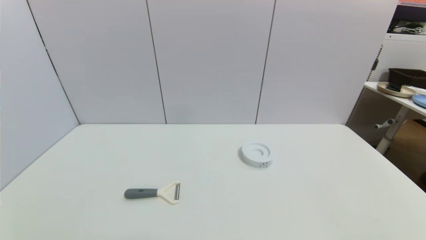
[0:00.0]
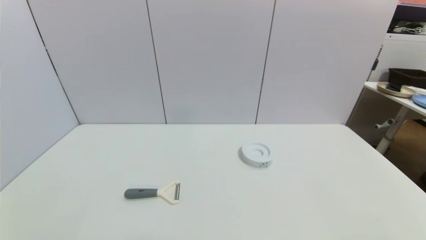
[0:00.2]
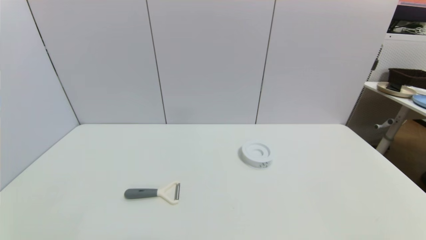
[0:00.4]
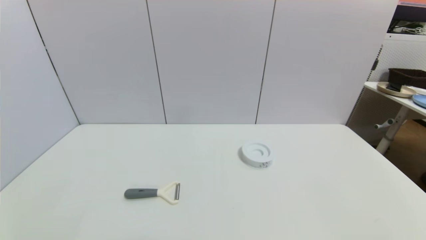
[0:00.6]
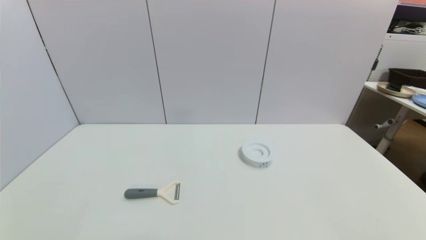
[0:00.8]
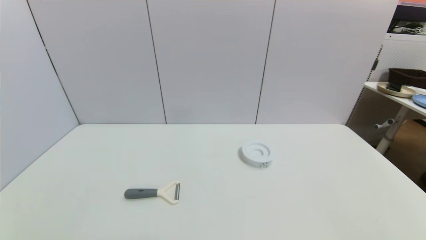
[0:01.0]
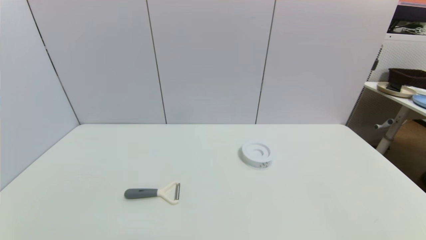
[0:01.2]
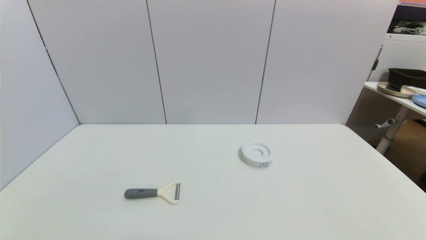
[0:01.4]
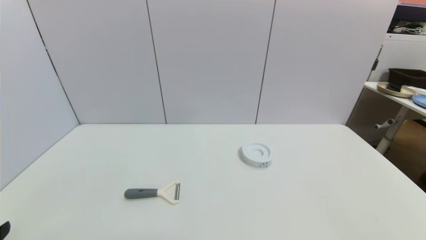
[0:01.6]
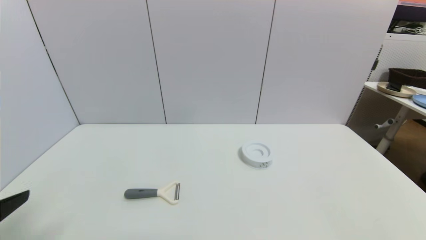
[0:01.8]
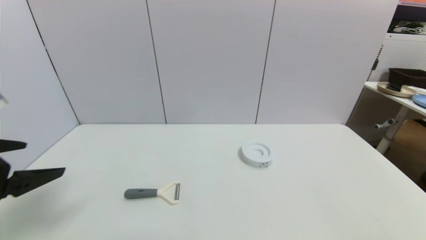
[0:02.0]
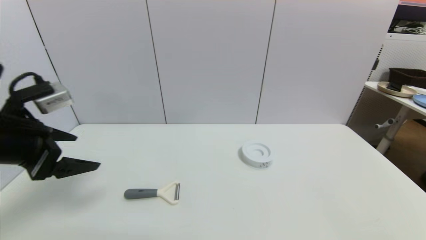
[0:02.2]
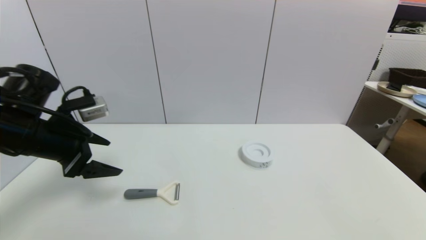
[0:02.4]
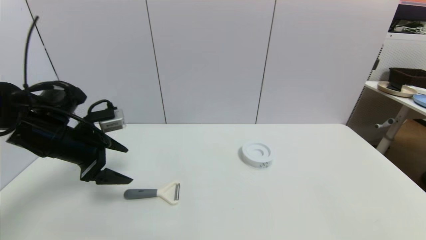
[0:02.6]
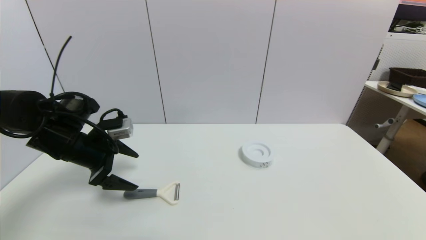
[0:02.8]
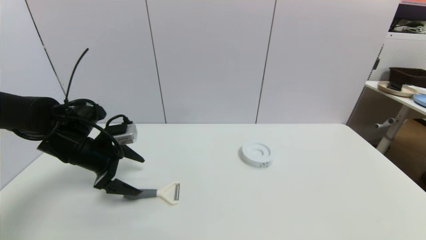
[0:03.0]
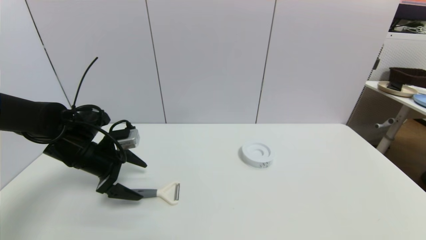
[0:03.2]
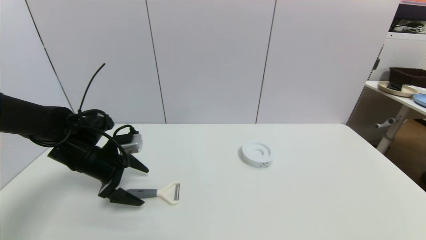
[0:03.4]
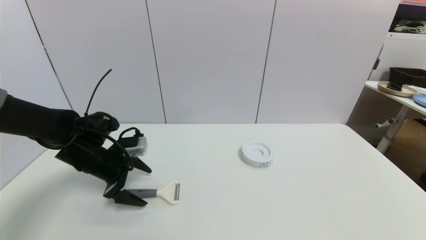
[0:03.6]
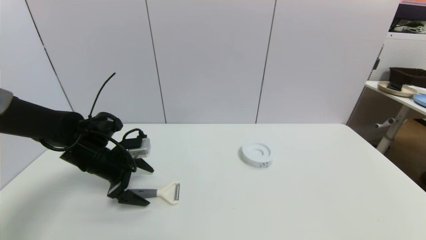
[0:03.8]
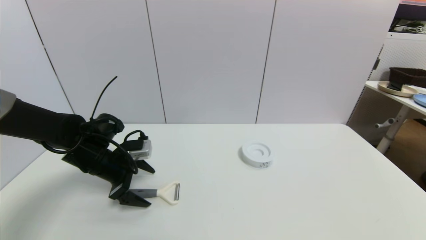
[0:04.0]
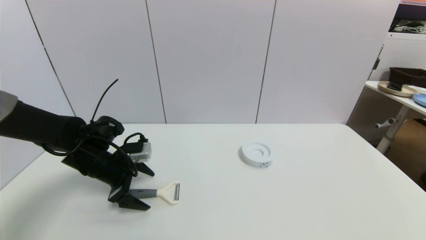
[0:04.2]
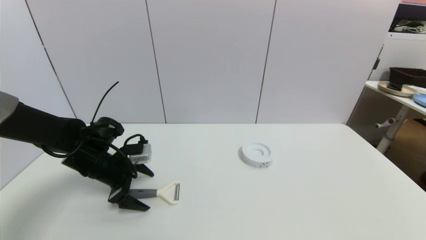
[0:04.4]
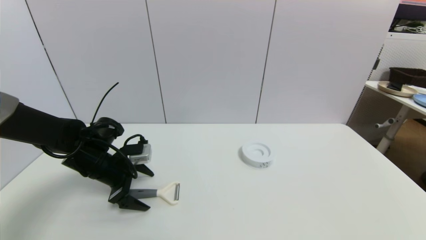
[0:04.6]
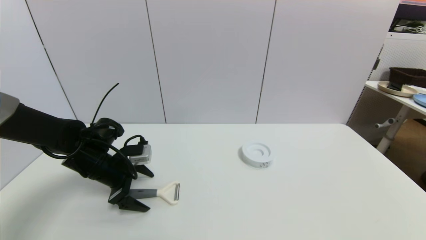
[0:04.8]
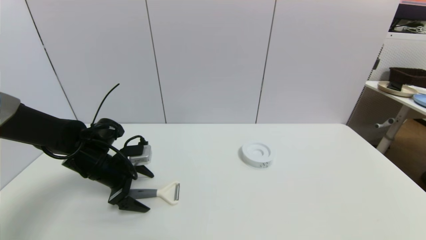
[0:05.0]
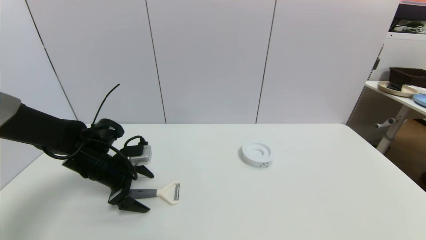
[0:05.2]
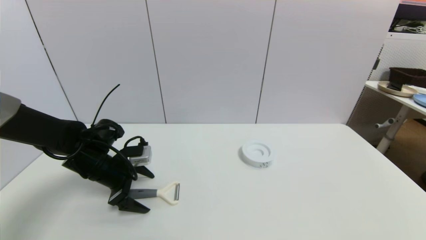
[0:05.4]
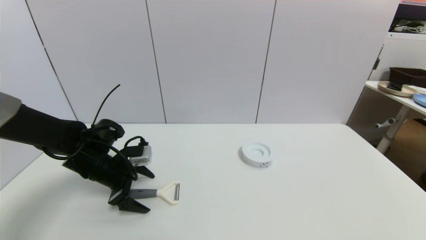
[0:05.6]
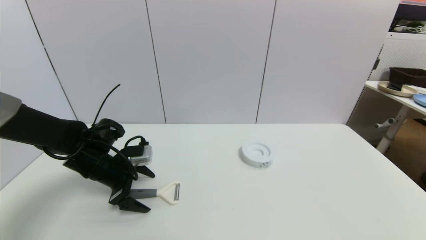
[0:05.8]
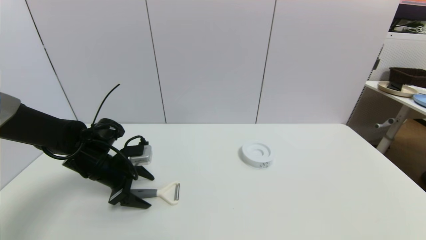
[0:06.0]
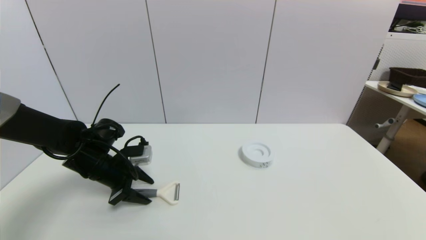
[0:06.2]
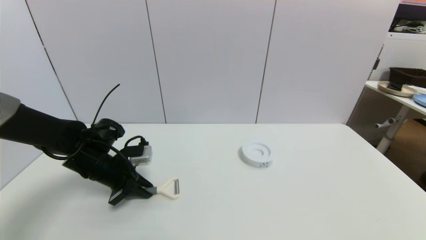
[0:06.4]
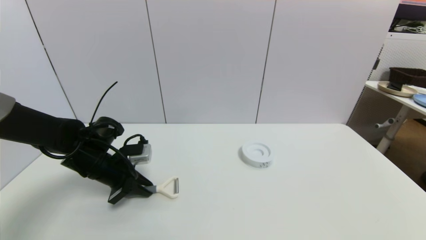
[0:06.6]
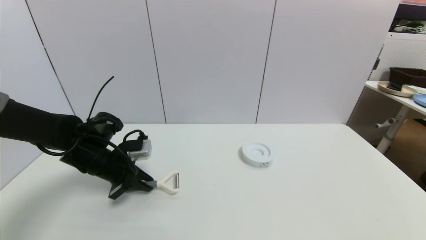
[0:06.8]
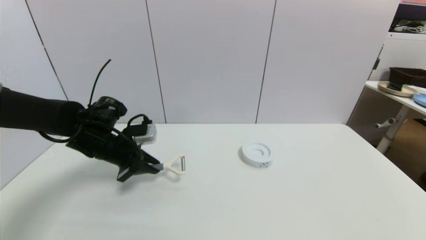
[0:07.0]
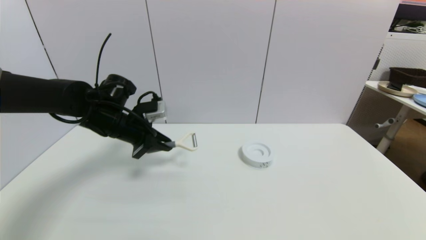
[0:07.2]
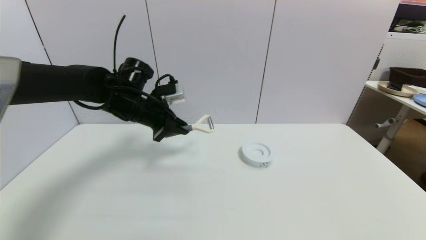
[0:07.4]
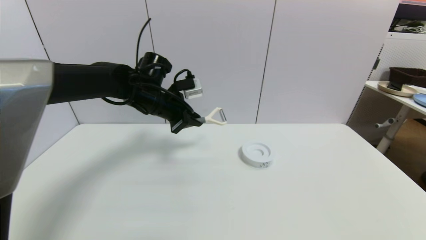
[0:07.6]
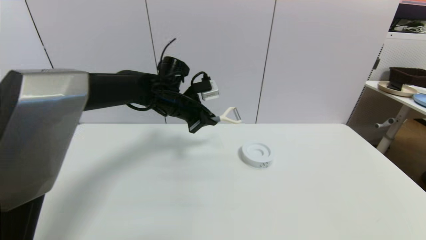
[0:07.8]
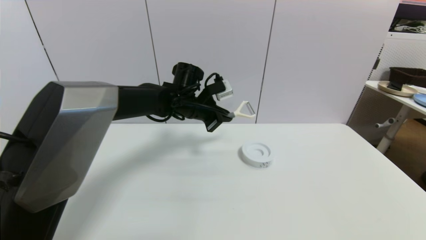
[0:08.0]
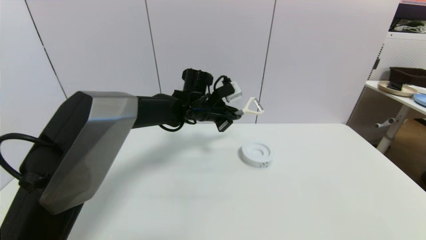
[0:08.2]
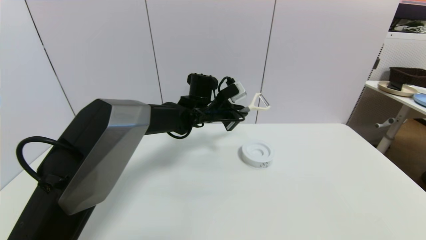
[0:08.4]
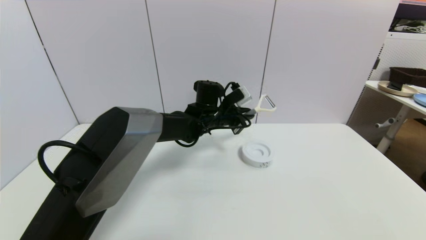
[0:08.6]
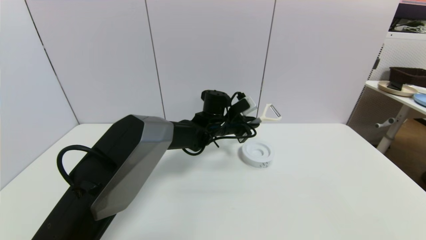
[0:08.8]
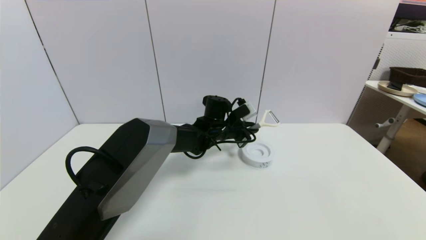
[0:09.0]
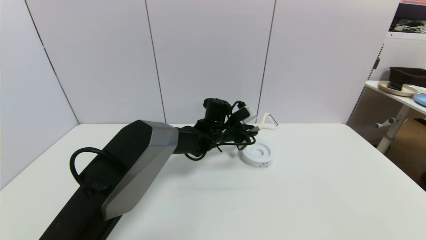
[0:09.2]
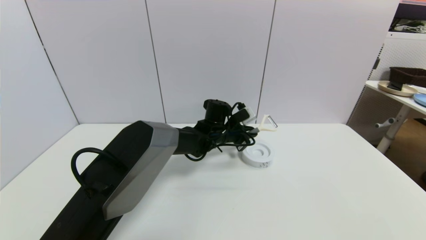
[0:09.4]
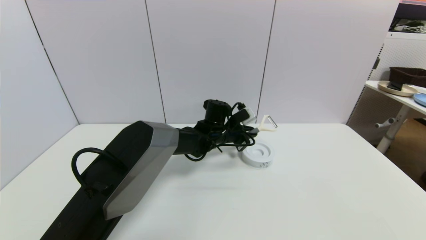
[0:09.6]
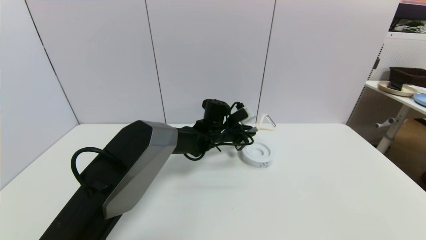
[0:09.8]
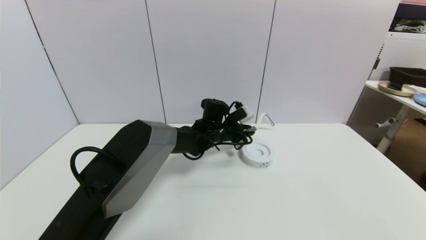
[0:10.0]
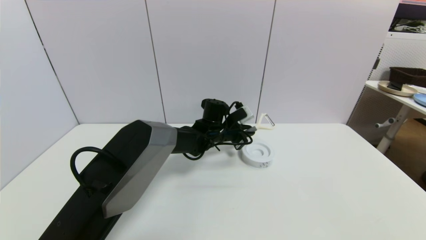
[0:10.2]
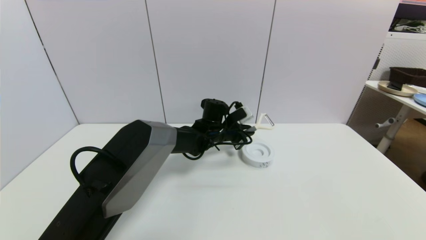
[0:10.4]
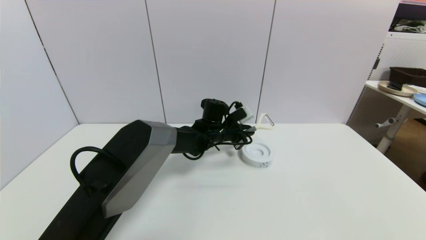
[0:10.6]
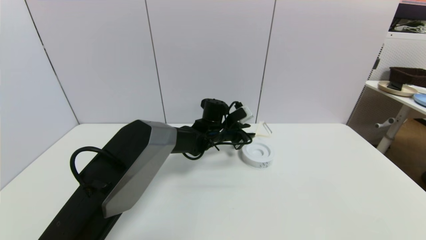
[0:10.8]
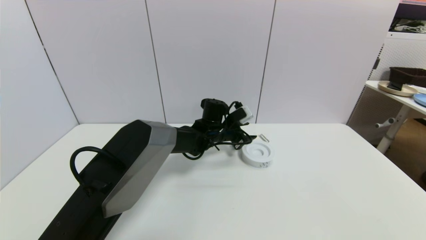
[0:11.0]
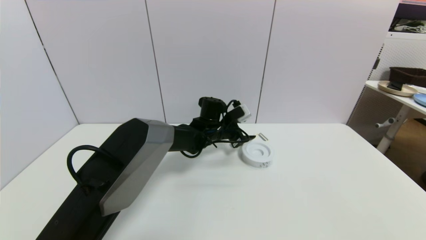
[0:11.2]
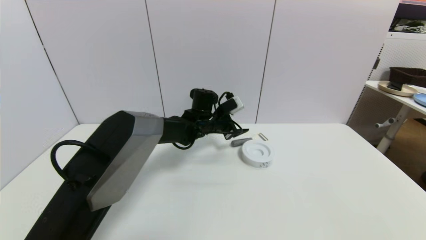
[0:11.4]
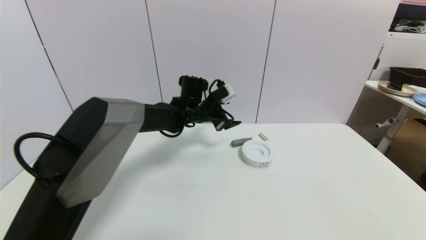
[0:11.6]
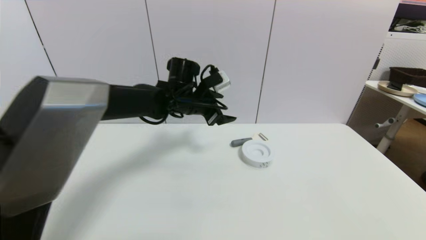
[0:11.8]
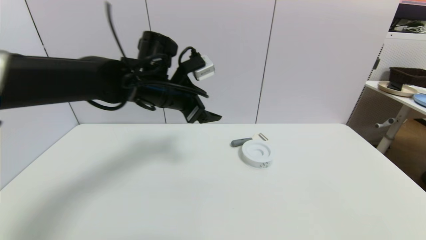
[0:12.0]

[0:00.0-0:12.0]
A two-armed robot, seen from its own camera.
Step, 0:01.6 to 0:06.8: Grasp the peeler with left gripper.
Step, 0:07.2 to 0:11.4: Place the peeler on the table with left gripper.
0:01.6 to 0:03.0: The left gripper is displaced forward by approximately 30 cm.
0:03.0 to 0:04.4: The left gripper ends up some 5 cm from where it was.
0:04.4 to 0:06.0: Both grippers stay put.
0:06.0 to 0:07.6: The left gripper moves to the right, upward and forward, about 20 cm, and closes.
0:07.6 to 0:09.0: The left gripper shifts approximately 20 cm to the right and downward.
0:09.0 to 0:10.4: The grippers move only a little.
0:10.4 to 0:12.0: The left gripper is displaced upward, to the left and backward by roughly 25 cm, and opens up.

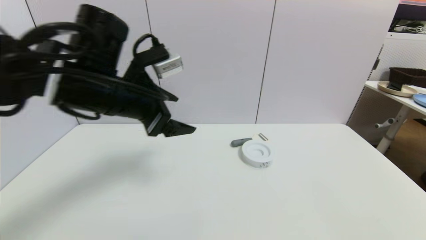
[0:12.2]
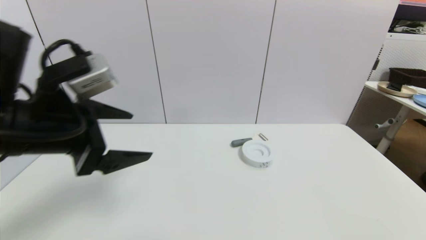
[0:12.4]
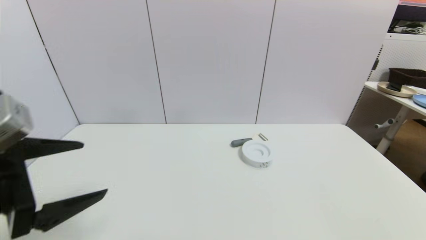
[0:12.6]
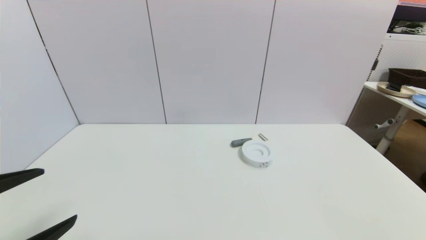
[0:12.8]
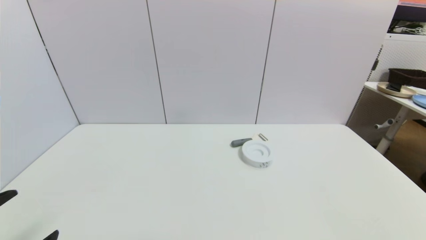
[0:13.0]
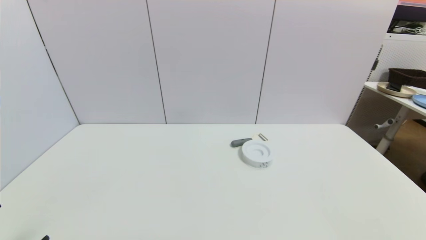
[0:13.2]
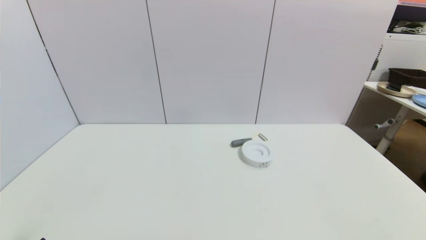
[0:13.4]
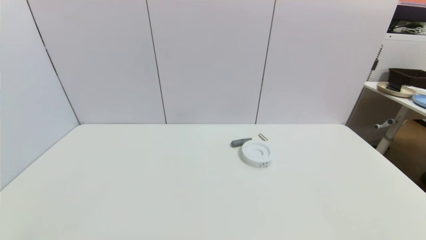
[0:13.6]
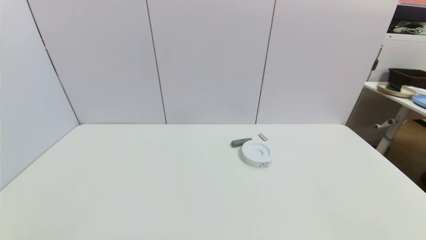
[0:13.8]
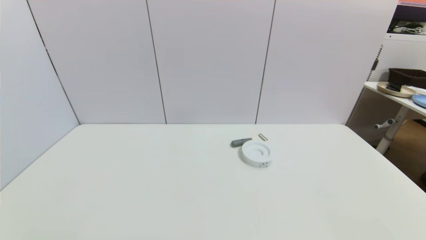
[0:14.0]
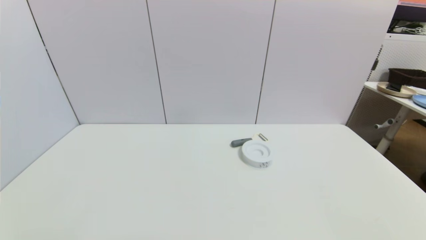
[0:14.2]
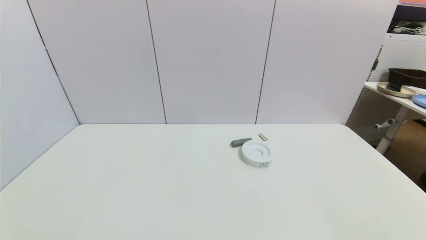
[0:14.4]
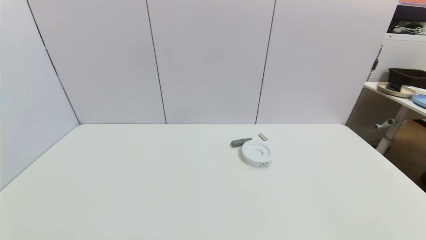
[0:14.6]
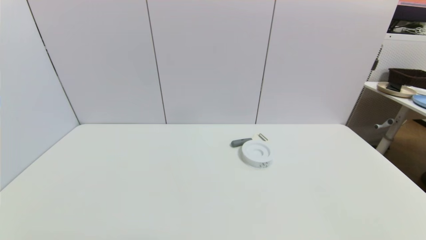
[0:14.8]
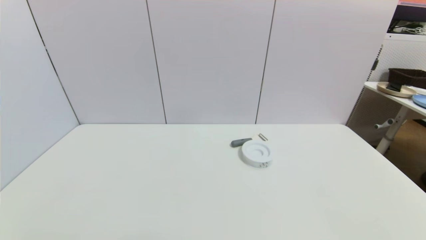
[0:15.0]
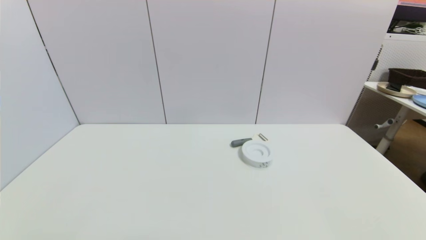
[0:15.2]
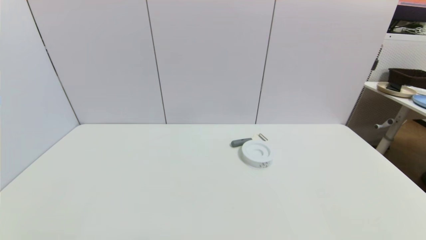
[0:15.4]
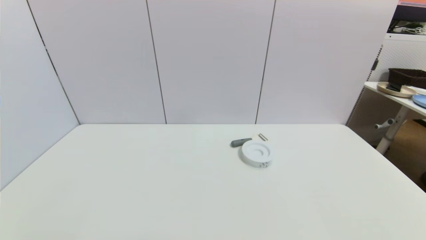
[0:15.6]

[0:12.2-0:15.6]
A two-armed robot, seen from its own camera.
0:12.2 to 0:13.8: The left gripper heads backward, downward and to the left, covering approximately 35 cm.
